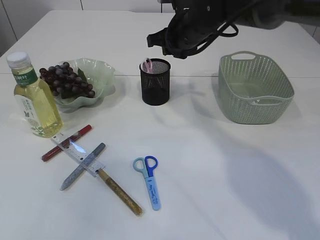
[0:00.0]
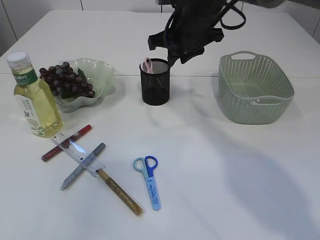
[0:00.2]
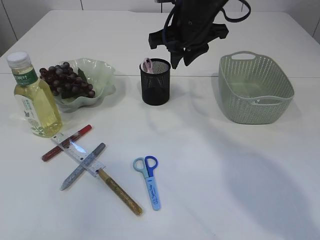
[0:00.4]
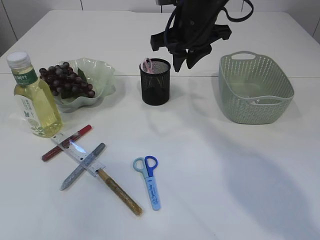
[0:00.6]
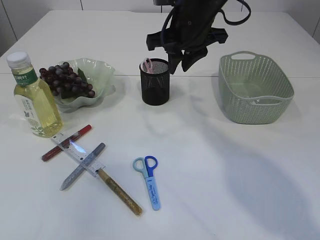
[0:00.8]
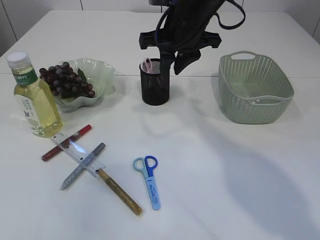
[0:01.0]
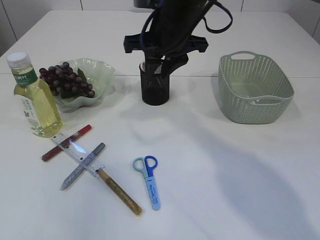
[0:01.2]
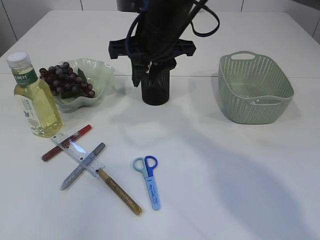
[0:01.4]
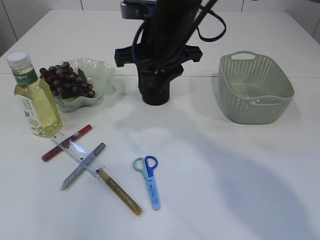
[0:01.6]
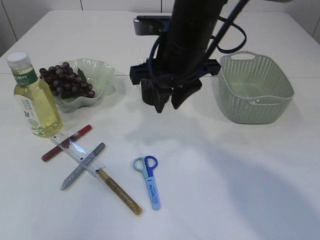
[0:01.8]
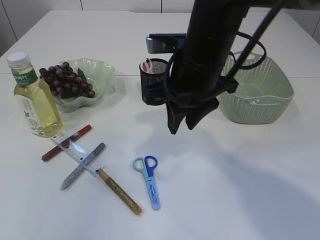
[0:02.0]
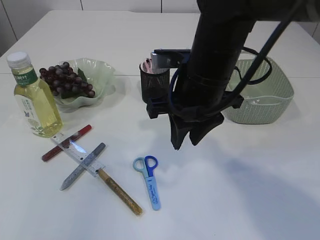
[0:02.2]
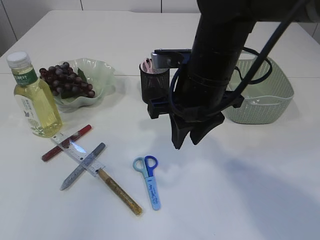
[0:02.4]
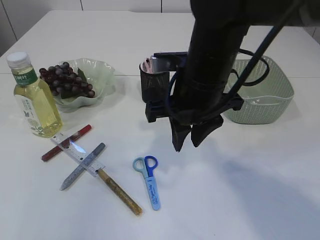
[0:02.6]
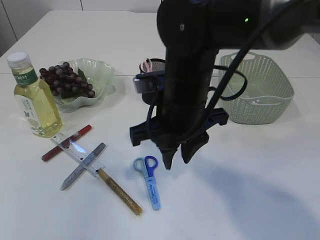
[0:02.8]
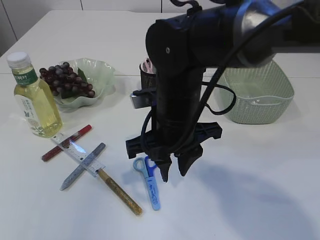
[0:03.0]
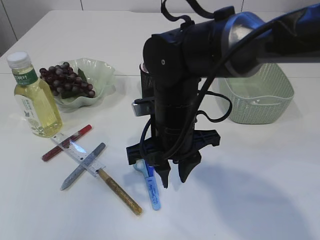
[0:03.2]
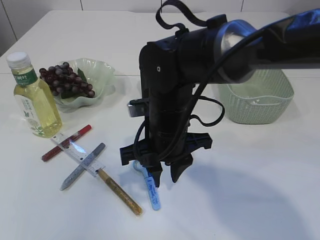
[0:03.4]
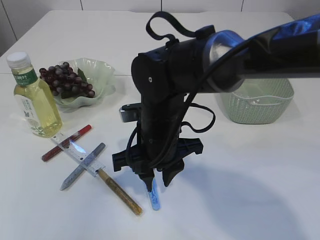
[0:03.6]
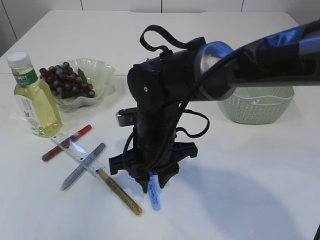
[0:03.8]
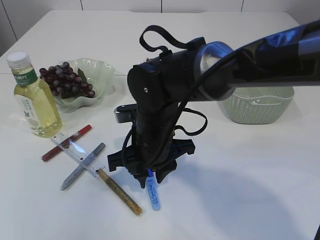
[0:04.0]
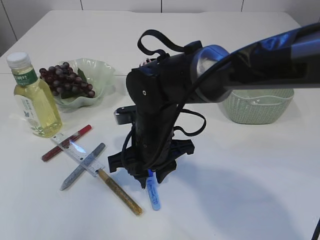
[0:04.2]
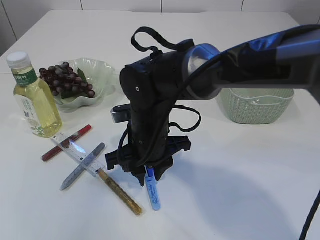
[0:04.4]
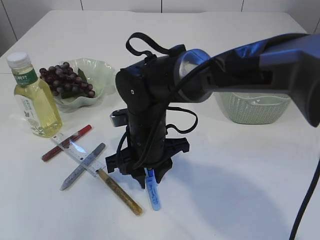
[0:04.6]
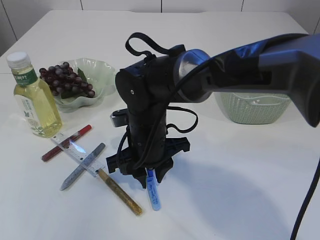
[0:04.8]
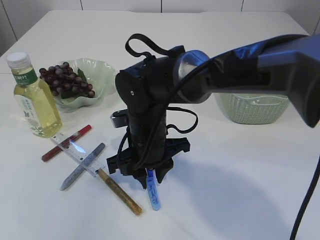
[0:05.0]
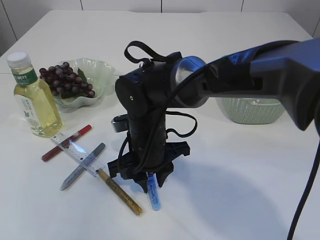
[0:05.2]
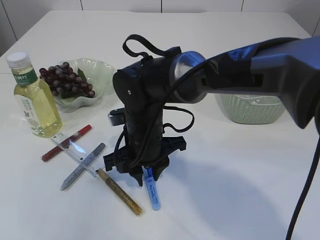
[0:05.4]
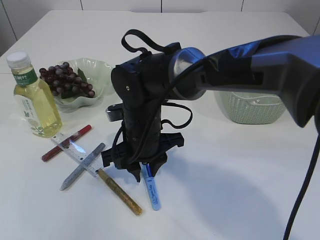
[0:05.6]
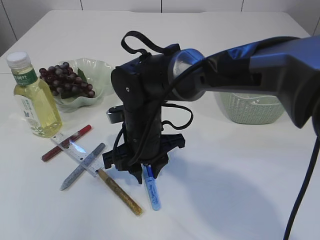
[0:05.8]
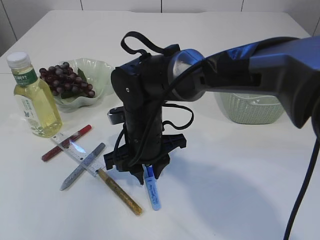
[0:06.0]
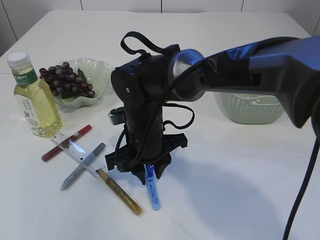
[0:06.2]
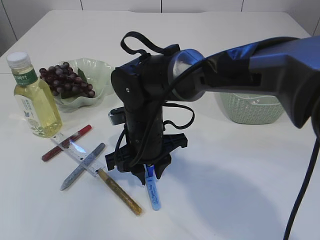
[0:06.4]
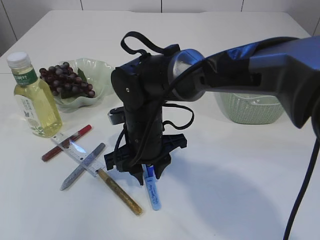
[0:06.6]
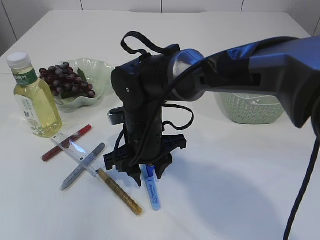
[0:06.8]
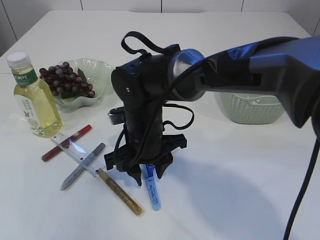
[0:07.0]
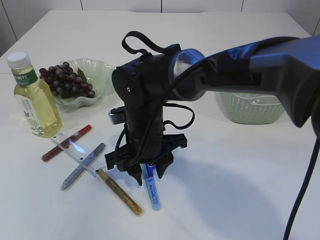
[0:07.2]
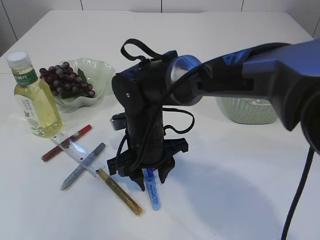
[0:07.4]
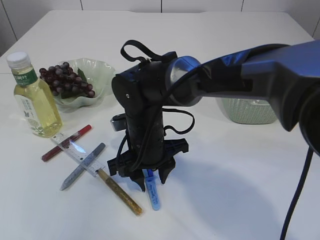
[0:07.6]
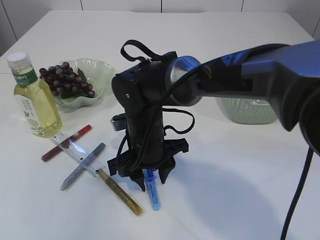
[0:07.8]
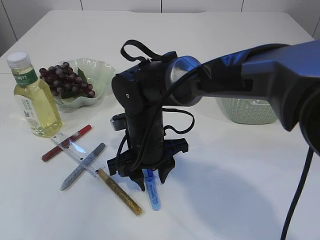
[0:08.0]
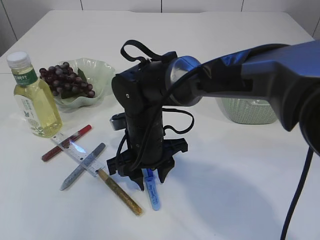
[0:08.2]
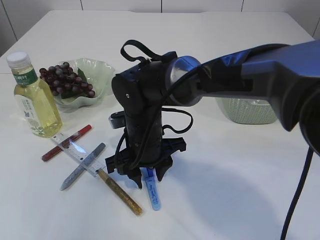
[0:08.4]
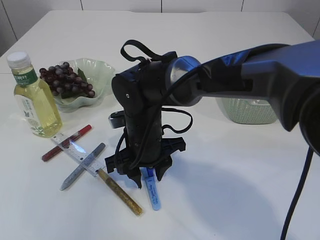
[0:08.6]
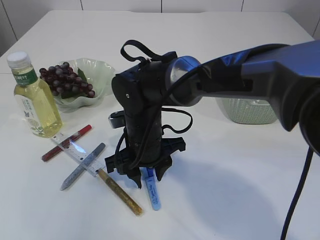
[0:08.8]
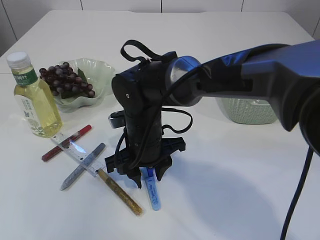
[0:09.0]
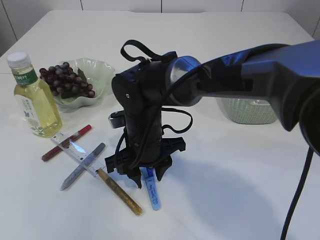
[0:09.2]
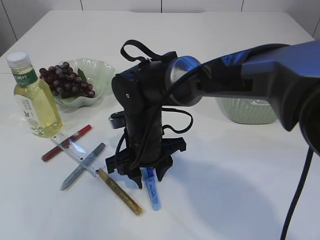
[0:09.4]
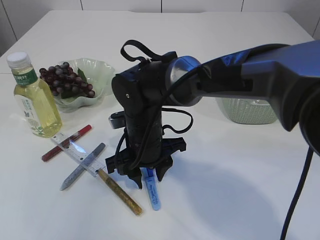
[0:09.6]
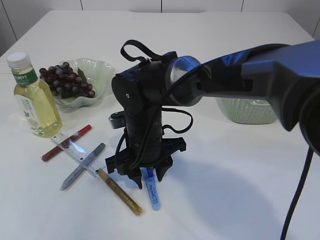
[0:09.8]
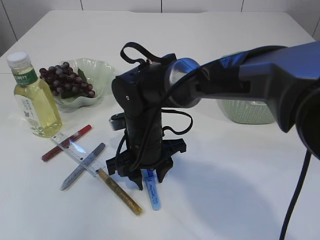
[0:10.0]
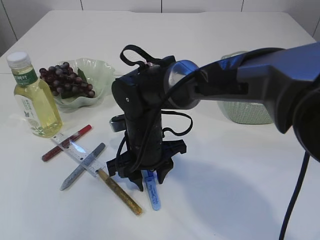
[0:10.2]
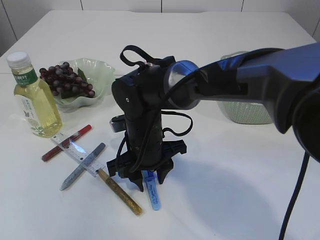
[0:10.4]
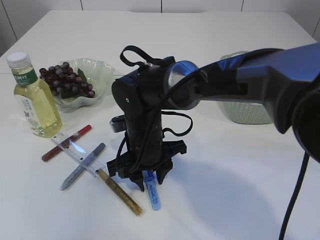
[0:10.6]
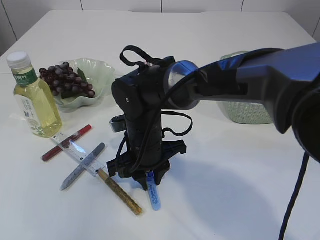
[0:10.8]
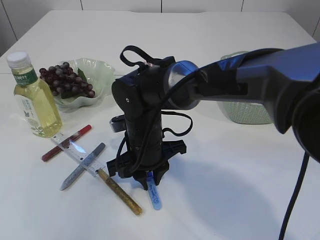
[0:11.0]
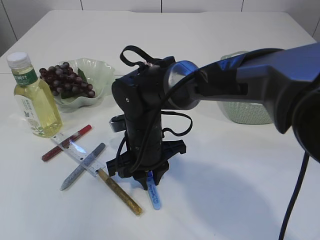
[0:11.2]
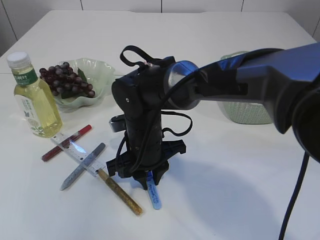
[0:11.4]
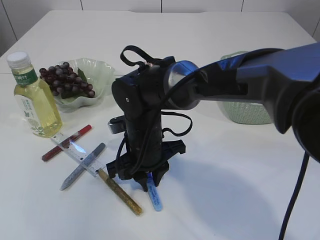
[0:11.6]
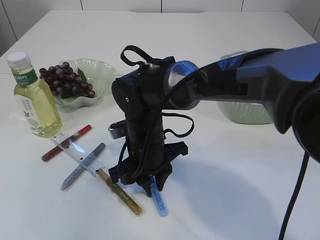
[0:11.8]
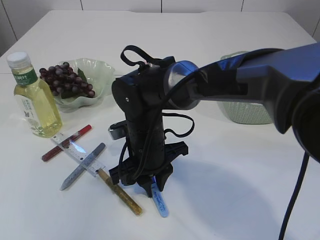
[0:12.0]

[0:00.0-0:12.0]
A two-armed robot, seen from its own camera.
0:00.0 to 0:01.6: The right gripper shifts some 10 cm backward and to the left.
0:01.6 to 0:03.0: The right gripper moves backward and downward, approximately 10 cm.
0:03.0 to 0:04.4: The right gripper moves downward, roughly 5 cm.
0:04.4 to 0:06.0: There are only small adjustments of the grippers.
0:06.0 to 0:09.0: Both grippers stay put.
0:09.0 to 0:10.4: Neither gripper changes place.
0:10.4 to 0:12.0: There are only small adjustments of the grippers.

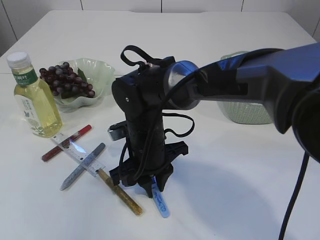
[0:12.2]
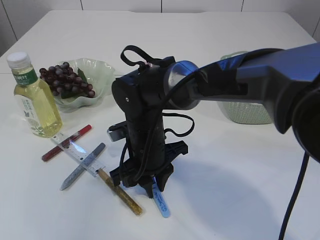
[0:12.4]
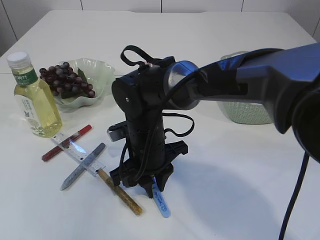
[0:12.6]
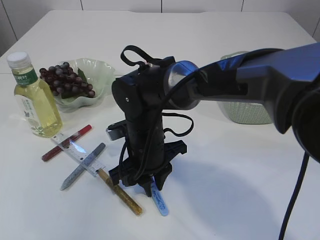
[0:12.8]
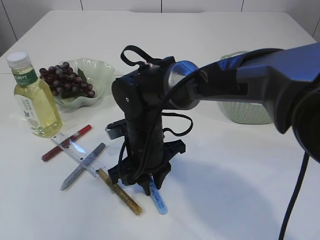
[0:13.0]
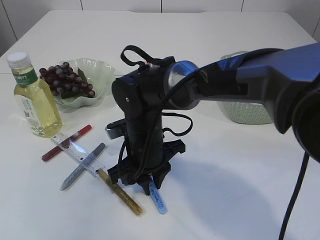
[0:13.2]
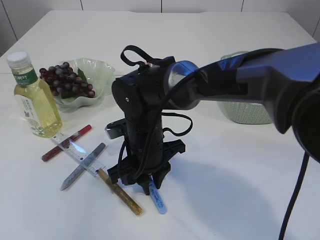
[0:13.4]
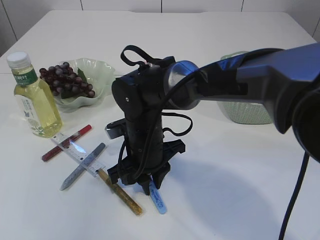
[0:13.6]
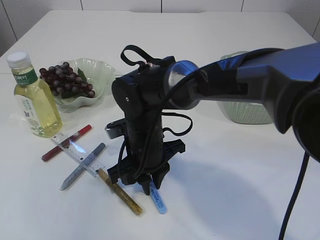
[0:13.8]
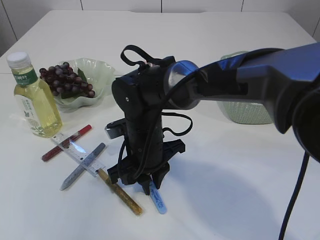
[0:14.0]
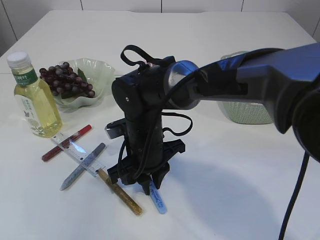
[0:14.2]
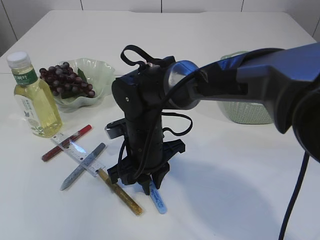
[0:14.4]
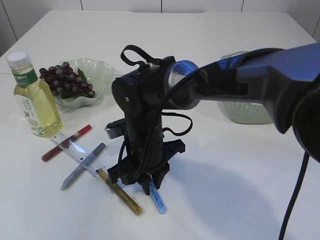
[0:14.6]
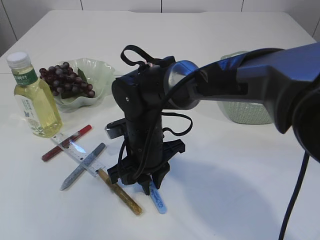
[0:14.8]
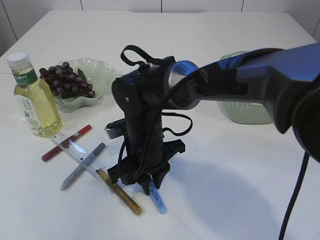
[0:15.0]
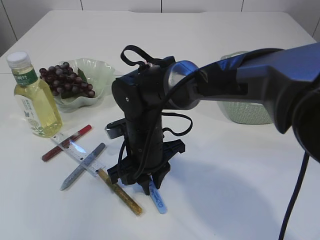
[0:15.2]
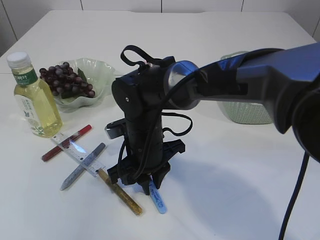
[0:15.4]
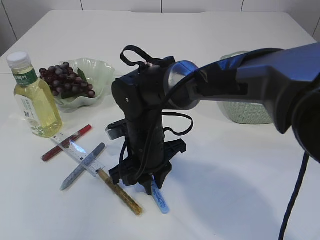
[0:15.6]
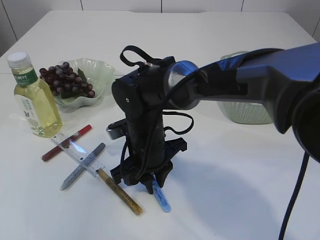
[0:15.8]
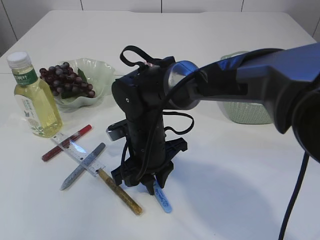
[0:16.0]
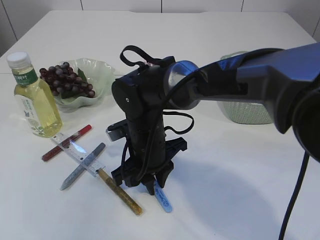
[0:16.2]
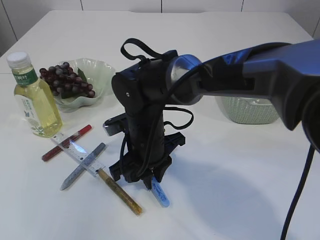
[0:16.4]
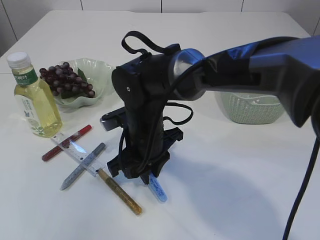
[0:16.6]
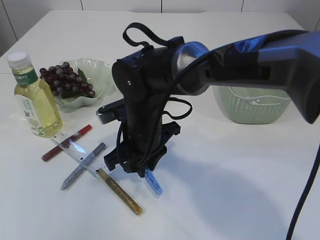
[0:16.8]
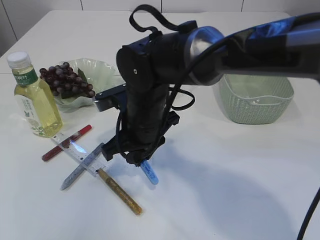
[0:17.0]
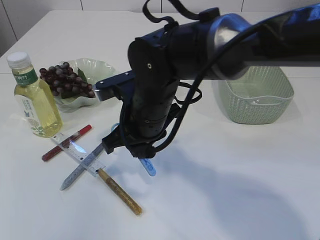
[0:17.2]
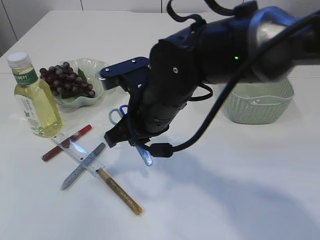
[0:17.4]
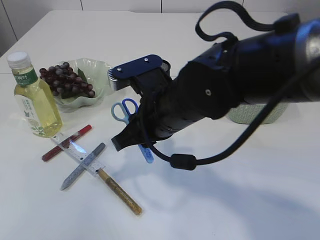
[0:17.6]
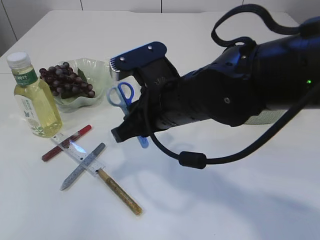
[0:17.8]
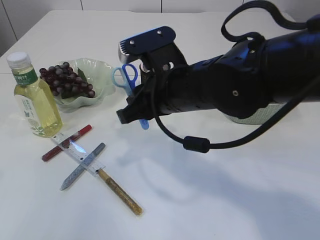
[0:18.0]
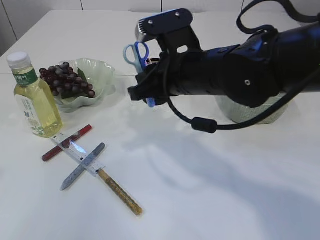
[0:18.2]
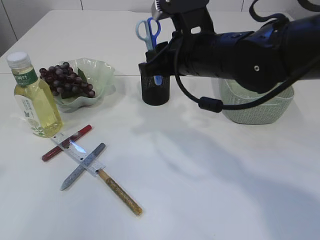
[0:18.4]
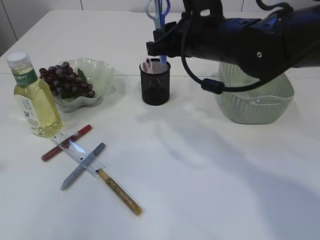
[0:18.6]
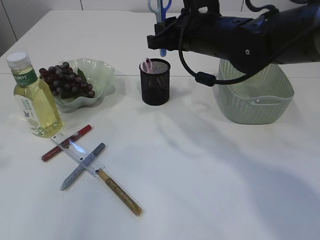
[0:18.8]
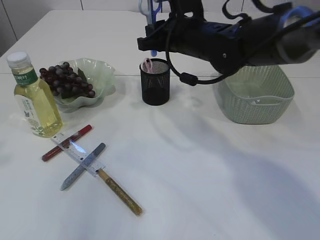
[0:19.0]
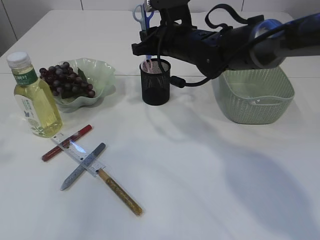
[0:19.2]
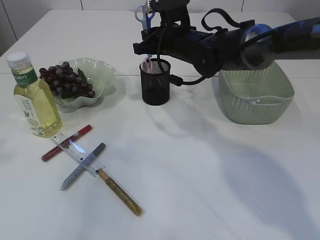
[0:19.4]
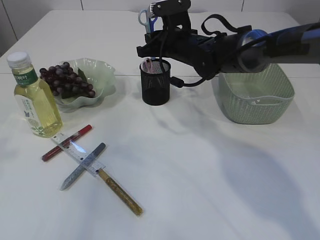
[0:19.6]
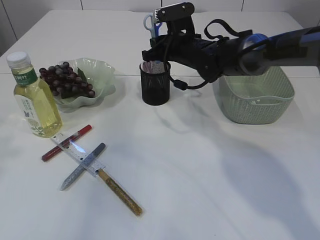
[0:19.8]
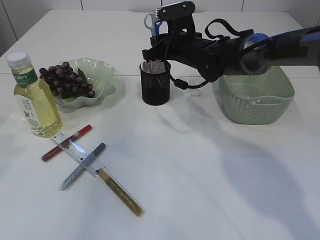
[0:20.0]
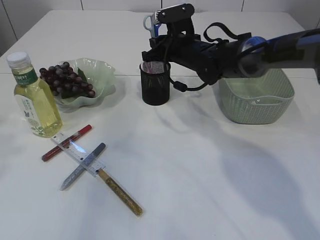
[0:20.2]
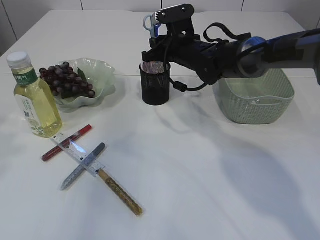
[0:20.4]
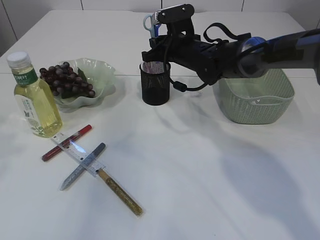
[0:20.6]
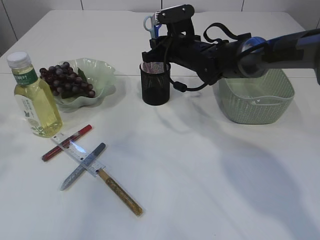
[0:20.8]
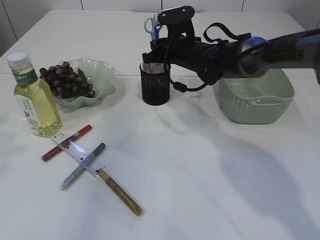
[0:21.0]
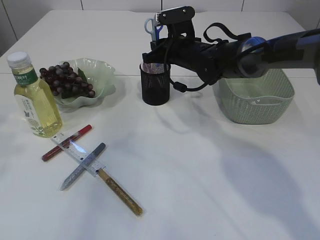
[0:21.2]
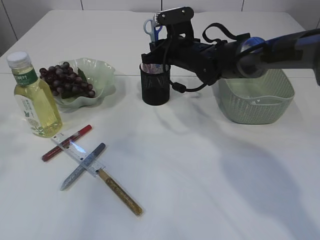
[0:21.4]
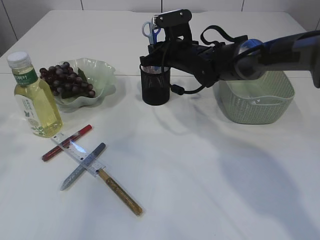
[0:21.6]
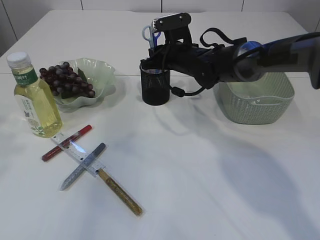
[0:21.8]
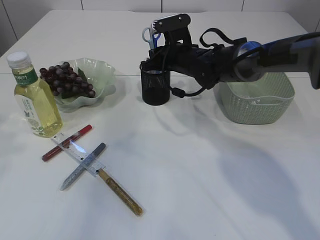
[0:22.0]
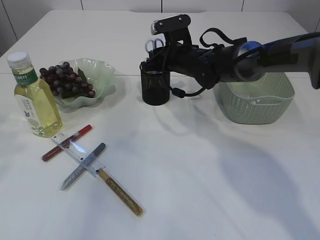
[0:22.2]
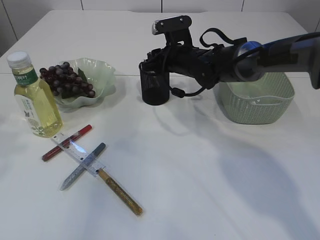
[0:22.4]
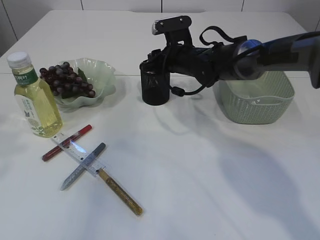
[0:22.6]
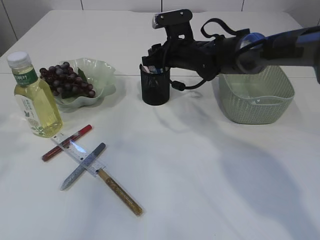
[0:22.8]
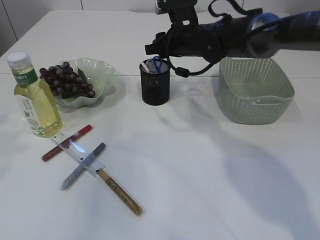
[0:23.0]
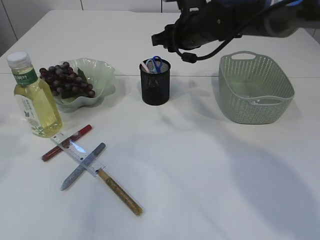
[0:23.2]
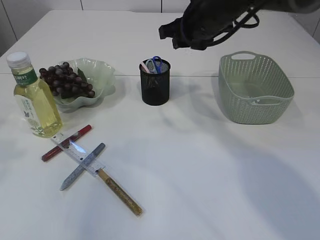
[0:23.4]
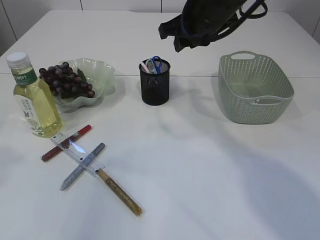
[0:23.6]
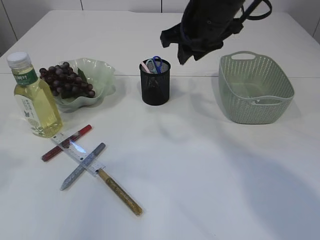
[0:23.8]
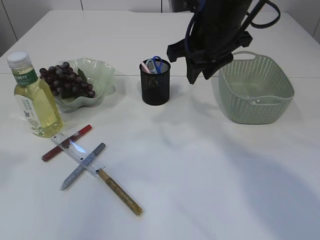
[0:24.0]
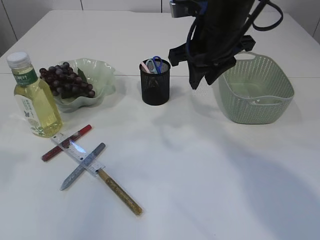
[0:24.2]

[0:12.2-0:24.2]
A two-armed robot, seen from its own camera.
Step, 0:12.2 to 0:17.4: pick up the blue scissors.
Step, 0:17.6 to 0:23.2: Place the blue scissors into the pen holder.
0:12.2 to 0:15.2: Neither gripper changes place.
0:15.2 to 0:16.6: The grippers make only small movements.
0:16.6 to 0:18.2: The right gripper is displaced upward and to the right by roughly 10 cm.
0:18.2 to 0:19.8: The right gripper travels forward by some 20 cm.
0:19.8 to 0:21.2: Neither gripper changes place.
0:21.2 to 0:22.6: The grippers move only a little.
0:22.6 to 0:24.2: The right gripper is displaced upward and backward by about 15 cm.
